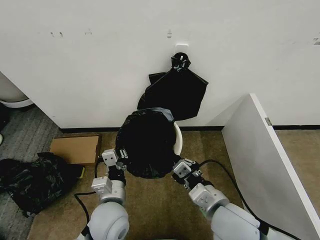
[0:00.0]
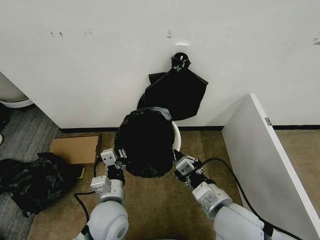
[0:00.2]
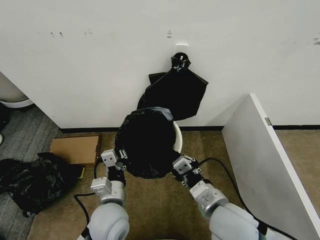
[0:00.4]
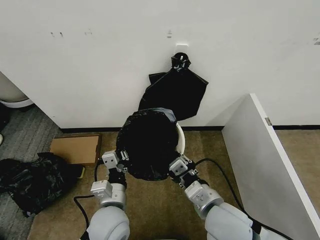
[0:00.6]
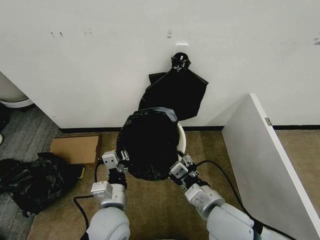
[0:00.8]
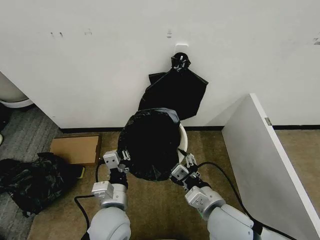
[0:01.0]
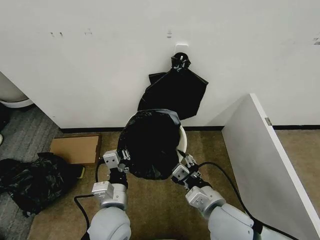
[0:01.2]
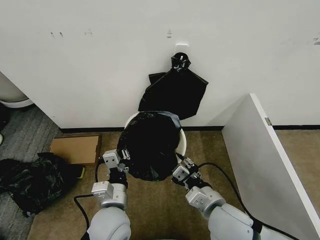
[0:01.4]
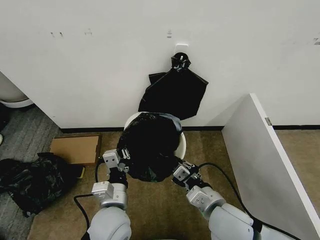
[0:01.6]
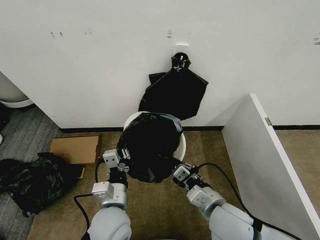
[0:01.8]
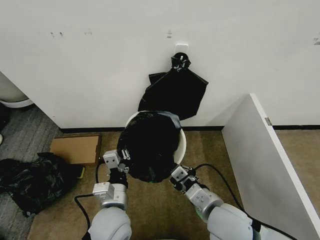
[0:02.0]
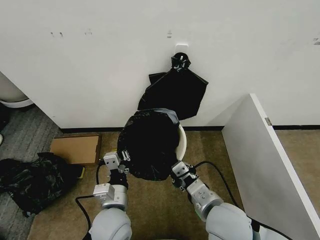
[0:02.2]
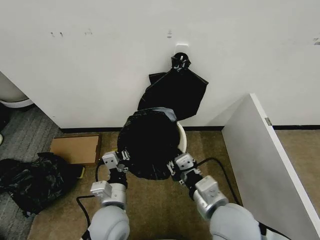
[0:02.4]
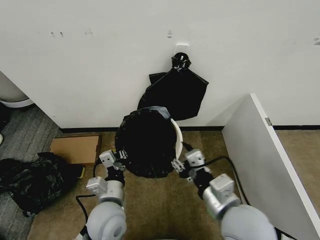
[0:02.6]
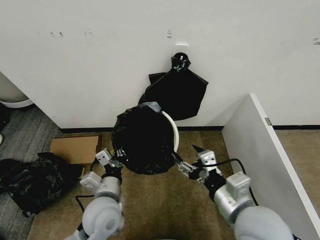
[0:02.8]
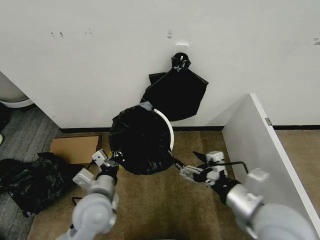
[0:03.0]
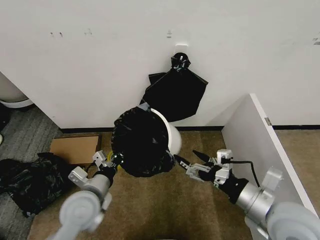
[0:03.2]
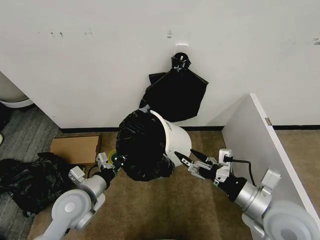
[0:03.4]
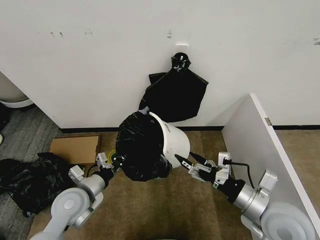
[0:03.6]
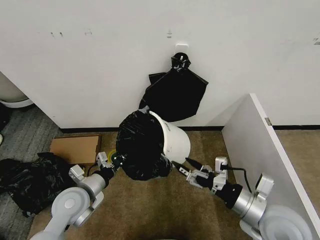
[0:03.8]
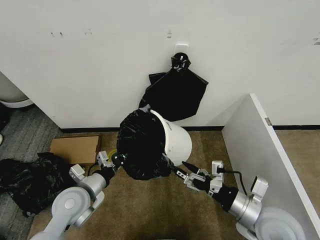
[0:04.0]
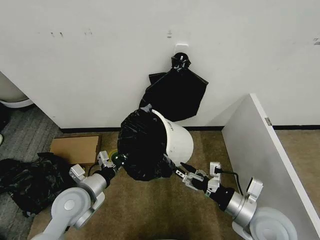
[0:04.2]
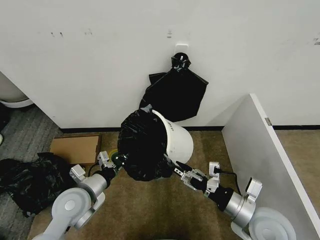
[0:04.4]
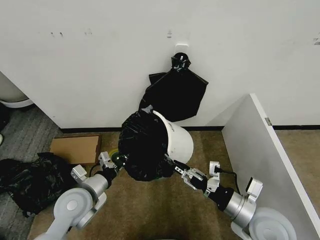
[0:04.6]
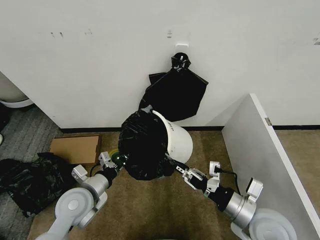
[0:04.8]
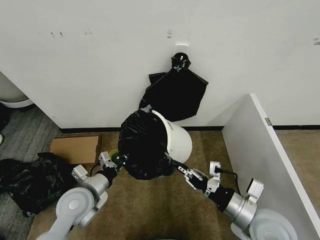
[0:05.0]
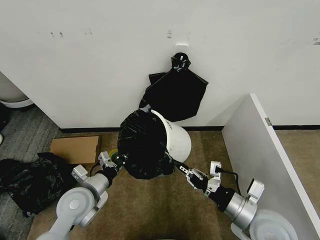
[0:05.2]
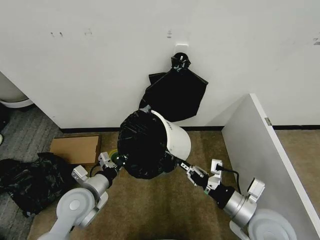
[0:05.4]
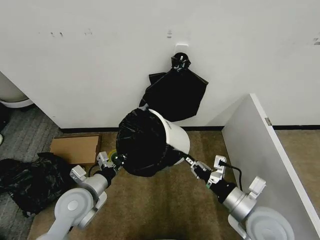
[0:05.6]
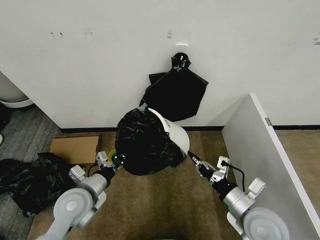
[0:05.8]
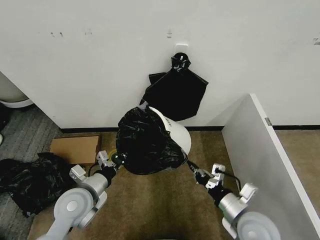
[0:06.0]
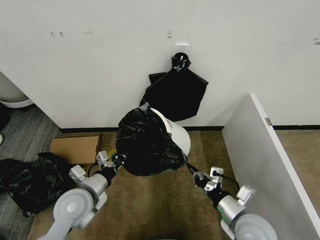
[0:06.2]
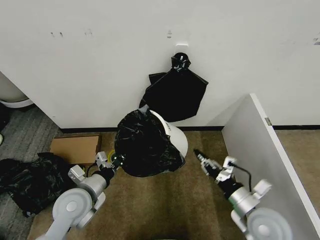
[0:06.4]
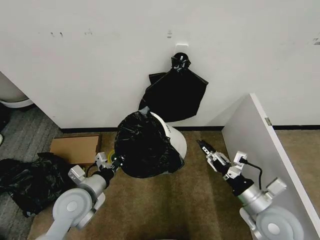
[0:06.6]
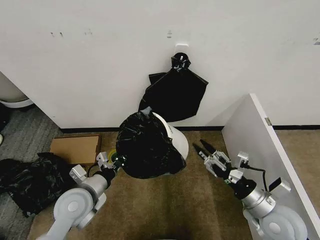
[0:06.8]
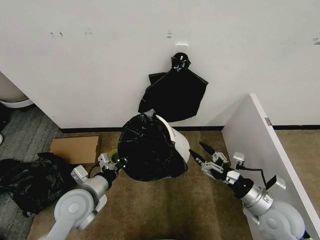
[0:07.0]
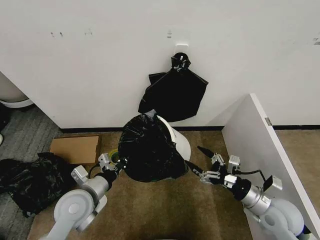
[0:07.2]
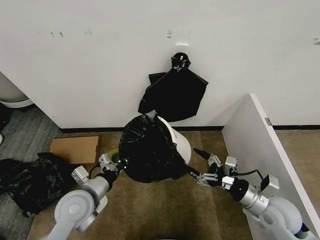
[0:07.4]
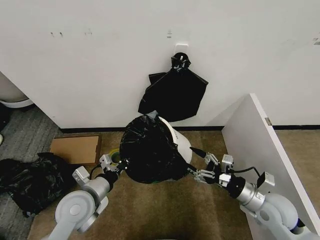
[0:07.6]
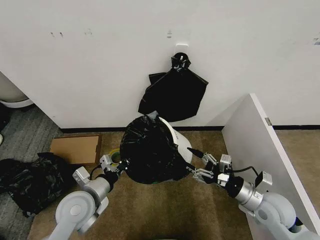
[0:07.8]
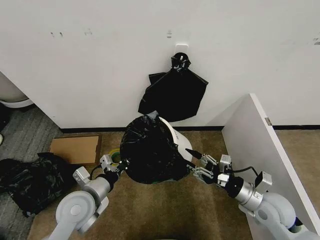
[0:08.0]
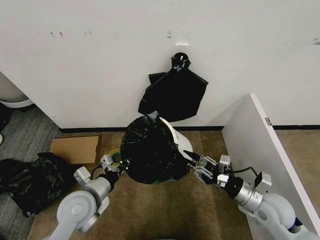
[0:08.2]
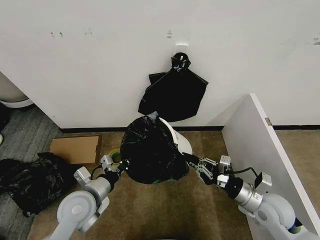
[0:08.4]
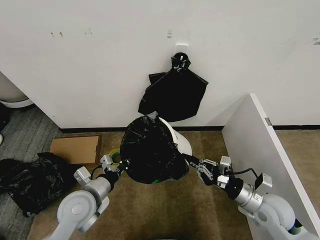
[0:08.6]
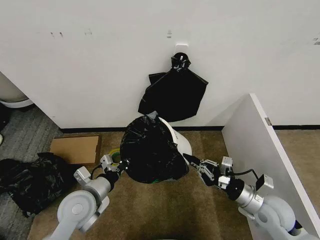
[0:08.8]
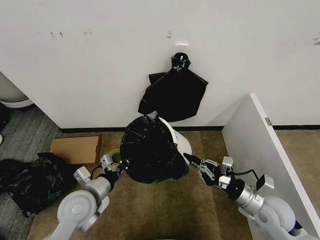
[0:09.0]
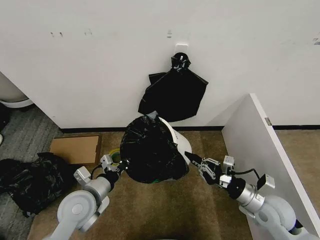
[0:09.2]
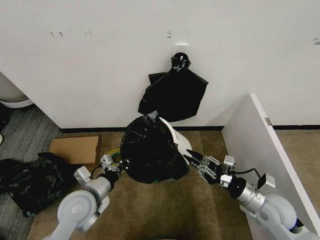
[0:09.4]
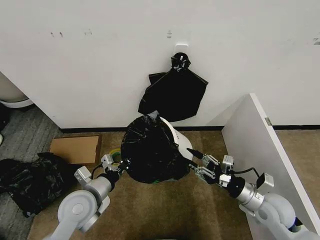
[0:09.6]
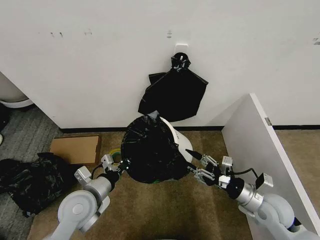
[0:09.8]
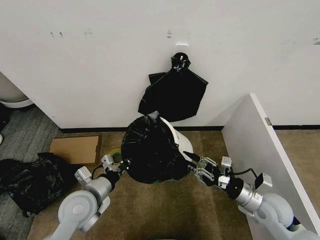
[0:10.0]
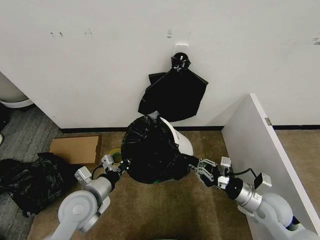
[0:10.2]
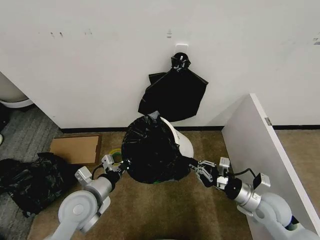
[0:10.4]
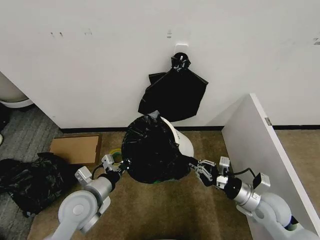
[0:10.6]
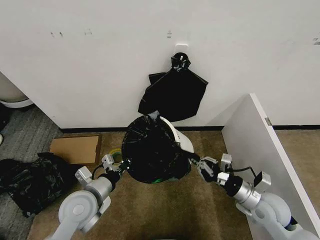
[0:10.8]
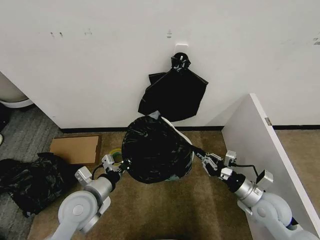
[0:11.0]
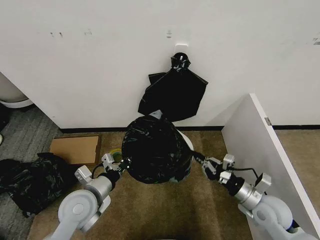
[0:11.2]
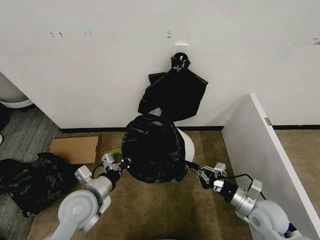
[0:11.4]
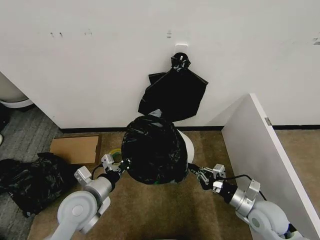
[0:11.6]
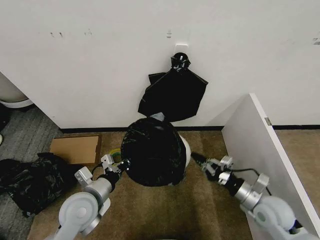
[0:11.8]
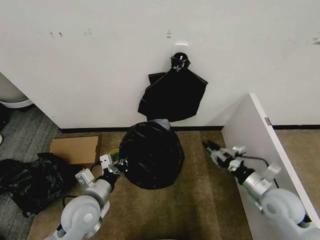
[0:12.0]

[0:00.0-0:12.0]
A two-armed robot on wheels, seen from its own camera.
Task of the whole recording: Place the garbage bag over the trash bin.
0:00.0 to 0:01.6: The right gripper opens, then closes again.
0:01.6 to 0:03.0: The right gripper moves upward and to the right, roughly 10 cm, and opens its fingers; the left gripper ends up roughly 5 cm from where it was.
0:03.0 to 0:04.4: The left gripper moves to the left, about 5 cm. Meanwhile the right gripper moves downward, about 10 cm.
0:04.4 to 0:06.0: The right gripper closes its fingers.
0:06.0 to 0:07.6: The right gripper moves to the right, some 5 cm, and opens its fingers.
0:07.6 to 0:09.0: The right gripper closes.
0:09.0 to 0:10.4: The right gripper opens and closes again.

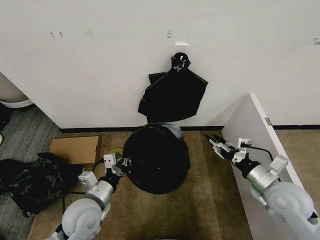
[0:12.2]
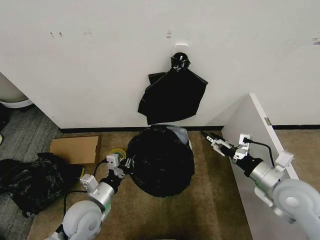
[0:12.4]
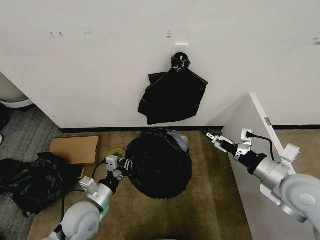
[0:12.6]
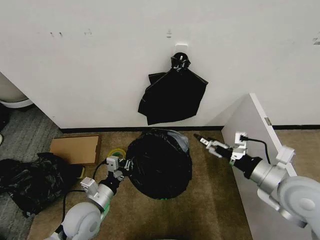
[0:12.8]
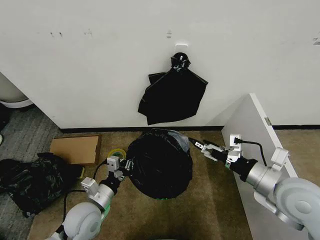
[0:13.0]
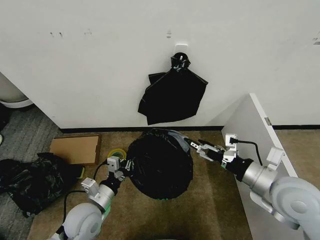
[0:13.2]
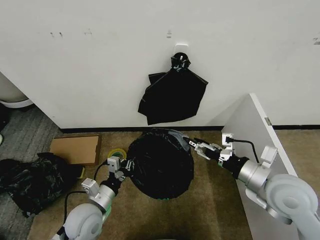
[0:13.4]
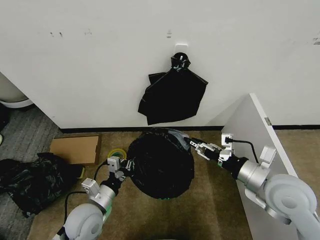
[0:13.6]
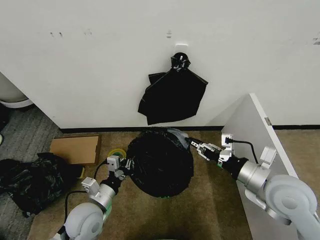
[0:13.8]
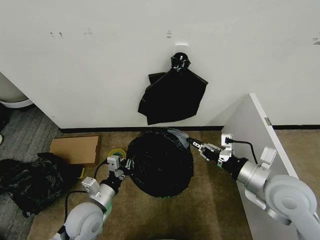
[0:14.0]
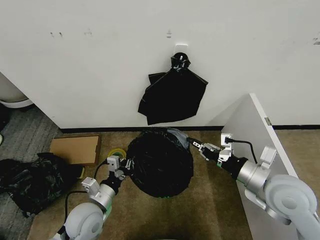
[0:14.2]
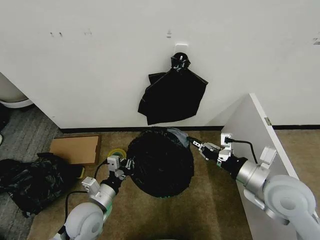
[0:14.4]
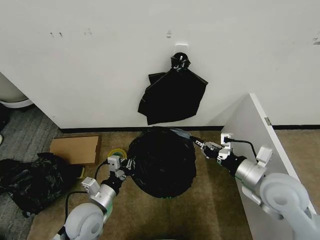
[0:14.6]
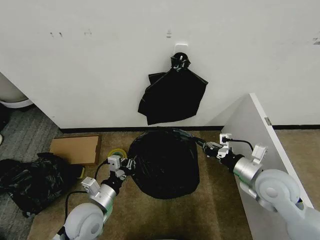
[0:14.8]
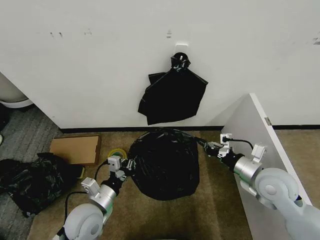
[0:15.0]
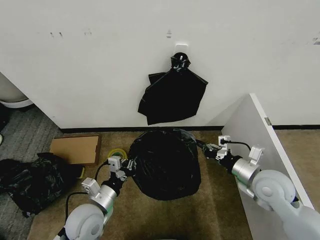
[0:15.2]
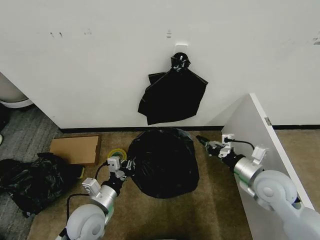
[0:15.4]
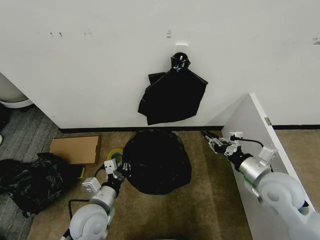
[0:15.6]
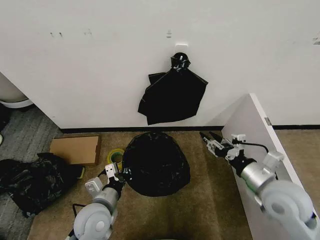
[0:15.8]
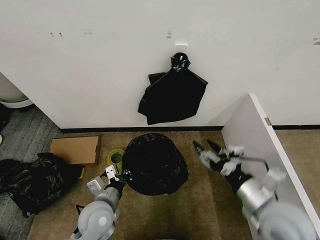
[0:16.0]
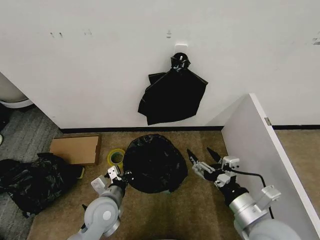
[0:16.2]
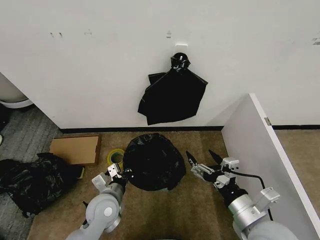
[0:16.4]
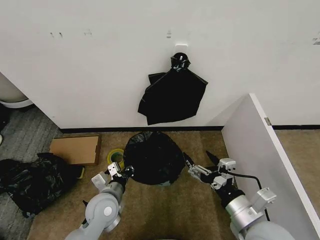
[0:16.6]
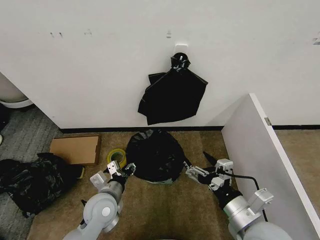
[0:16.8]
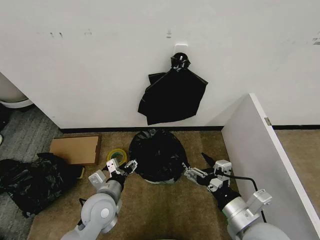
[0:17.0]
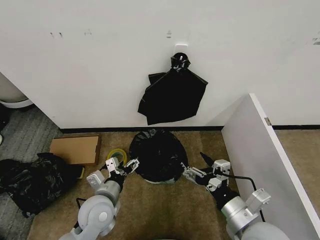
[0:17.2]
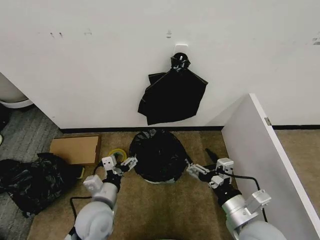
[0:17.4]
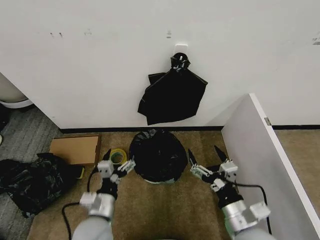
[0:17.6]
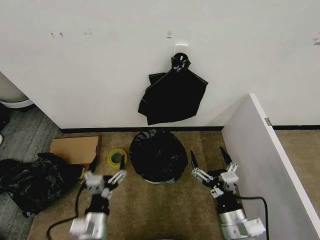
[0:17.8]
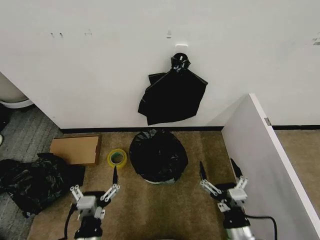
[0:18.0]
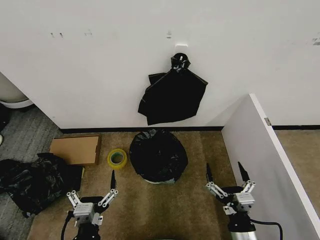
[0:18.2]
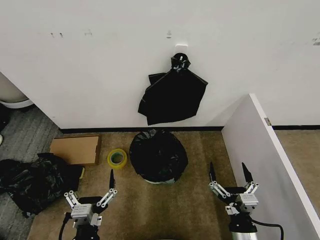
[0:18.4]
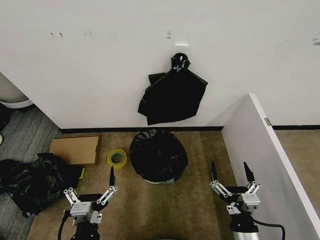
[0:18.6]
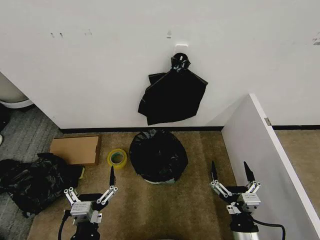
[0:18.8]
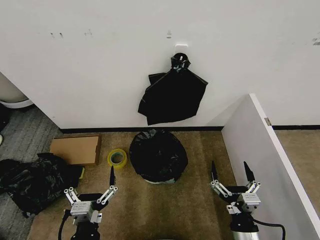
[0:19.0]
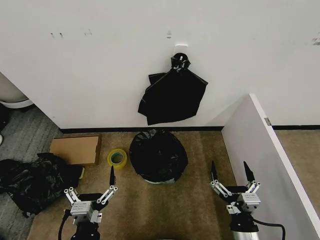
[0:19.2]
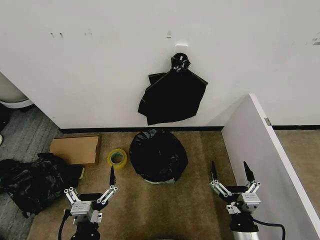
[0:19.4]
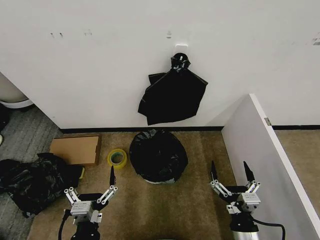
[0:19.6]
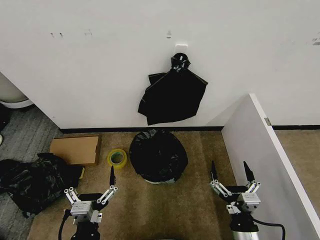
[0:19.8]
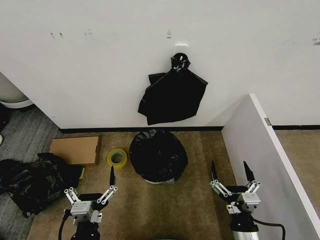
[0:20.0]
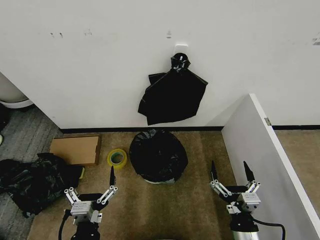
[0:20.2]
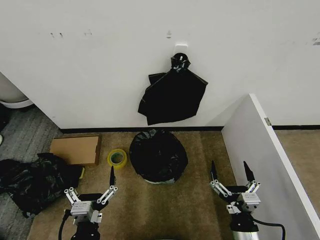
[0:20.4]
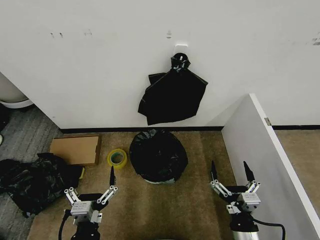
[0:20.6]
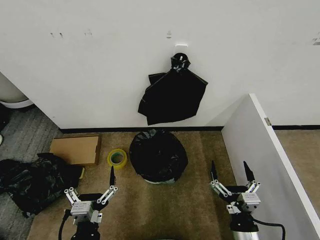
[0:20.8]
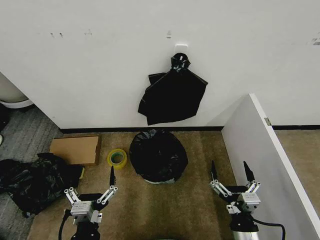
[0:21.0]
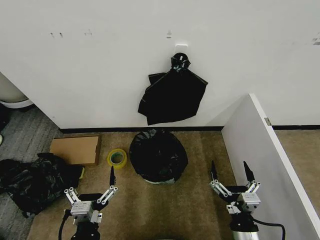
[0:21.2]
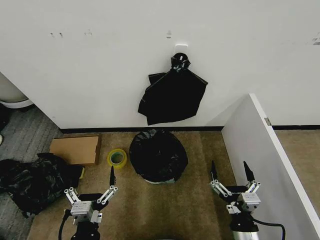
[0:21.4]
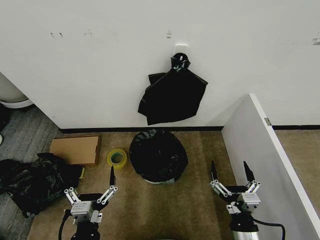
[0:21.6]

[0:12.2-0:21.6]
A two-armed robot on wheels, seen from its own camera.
Task of the whole recording: Place the garbage bag over the trash bin.
0:12.2 to 0:13.8: The right gripper moves upward, roughly 5 cm, and opens, then closes once more.
0:13.8 to 0:15.4: The right gripper shifts by approximately 5 cm.
0:15.4 to 0:17.0: The right gripper is displaced backward and to the left by some 15 cm, and opens its fingers. Meanwhile the left gripper opens up.
0:17.0 to 0:18.4: The right gripper is displaced downward by approximately 10 cm. Meanwhile the left gripper shifts some 20 cm backward.
0:18.4 to 0:21.6: Both grippers stay put.

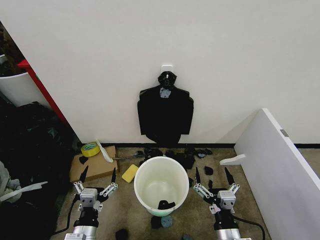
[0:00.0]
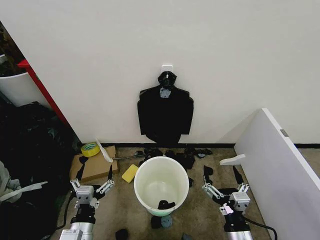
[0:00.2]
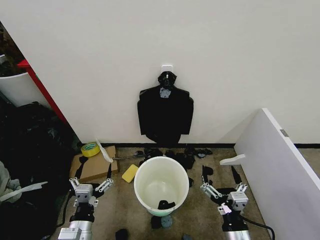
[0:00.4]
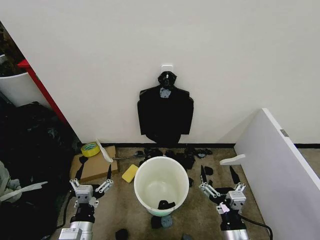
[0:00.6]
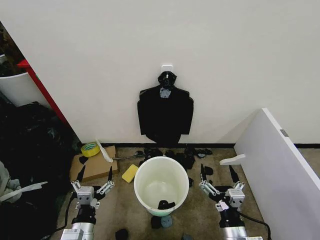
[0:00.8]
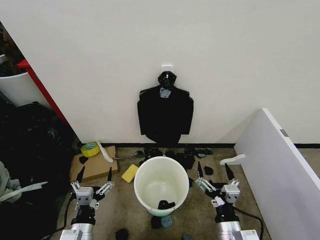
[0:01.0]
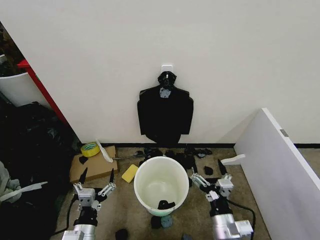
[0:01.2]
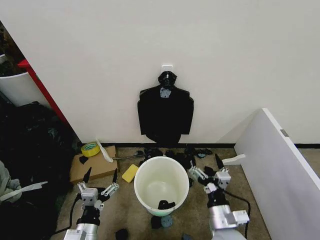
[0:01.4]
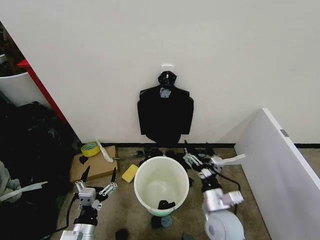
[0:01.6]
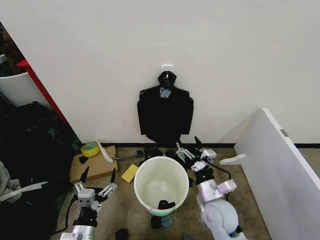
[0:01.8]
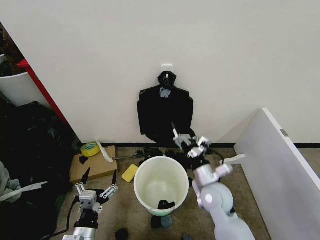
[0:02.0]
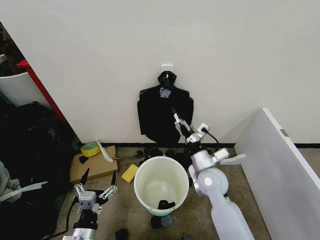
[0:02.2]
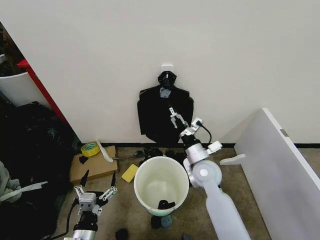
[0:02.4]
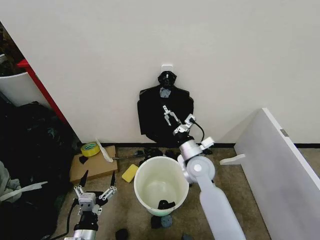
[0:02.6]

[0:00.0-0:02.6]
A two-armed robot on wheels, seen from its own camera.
Task of the whole recording: Place the garbage bag over the trash bin.
0:01.2 to 0:02.6: The right gripper heads forward, covering some 25 cm.
